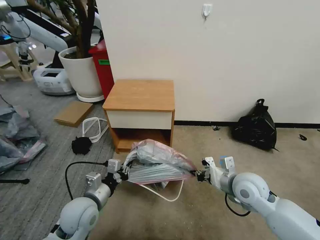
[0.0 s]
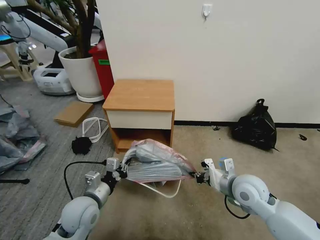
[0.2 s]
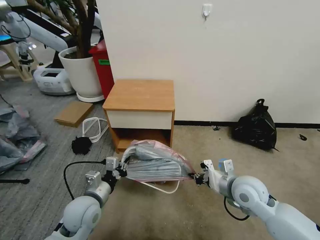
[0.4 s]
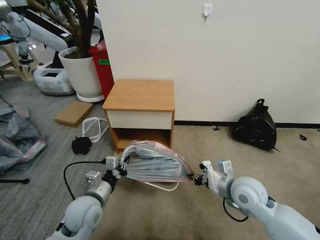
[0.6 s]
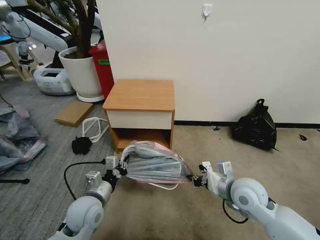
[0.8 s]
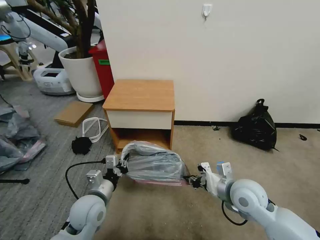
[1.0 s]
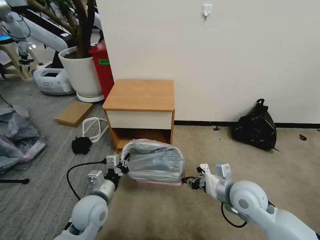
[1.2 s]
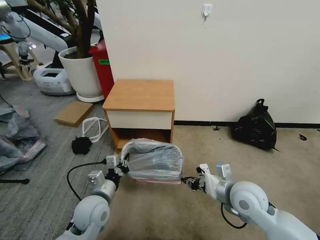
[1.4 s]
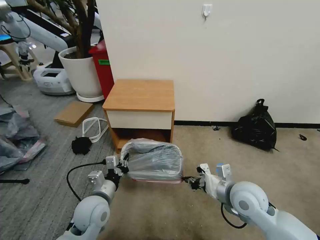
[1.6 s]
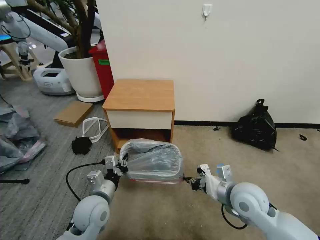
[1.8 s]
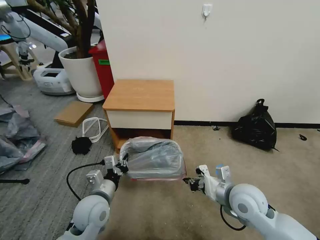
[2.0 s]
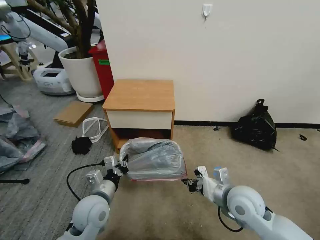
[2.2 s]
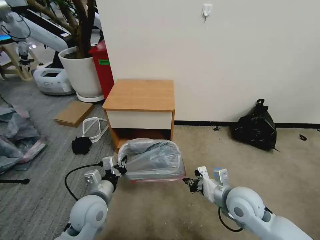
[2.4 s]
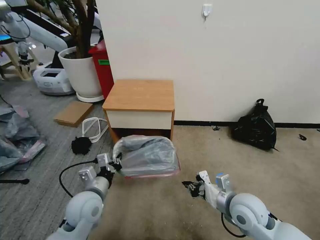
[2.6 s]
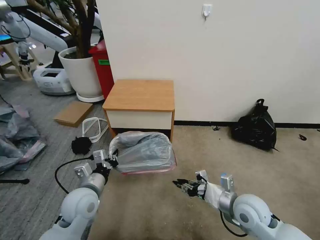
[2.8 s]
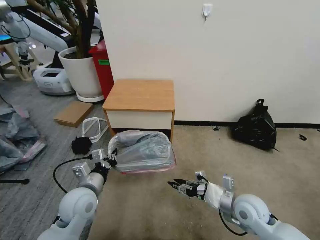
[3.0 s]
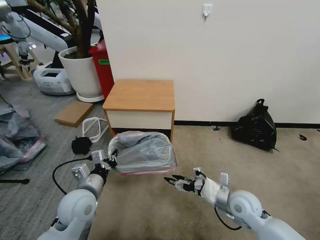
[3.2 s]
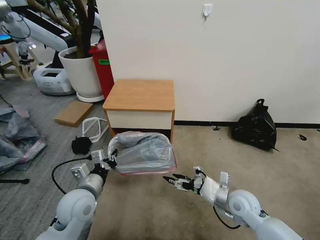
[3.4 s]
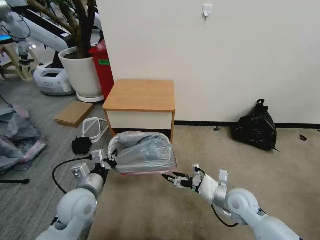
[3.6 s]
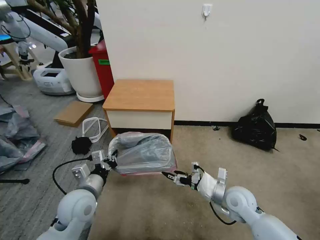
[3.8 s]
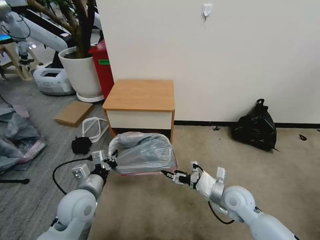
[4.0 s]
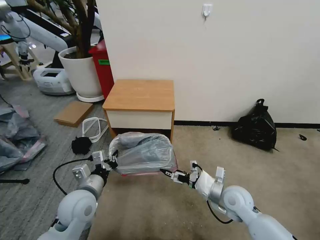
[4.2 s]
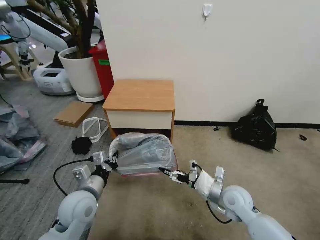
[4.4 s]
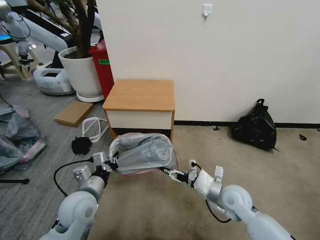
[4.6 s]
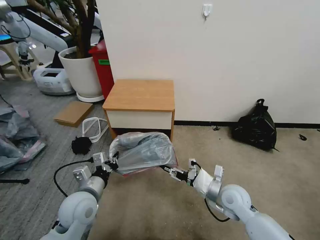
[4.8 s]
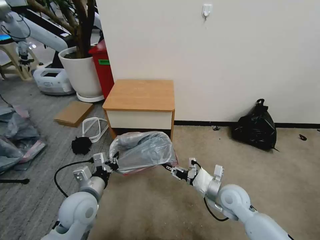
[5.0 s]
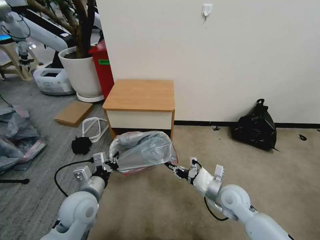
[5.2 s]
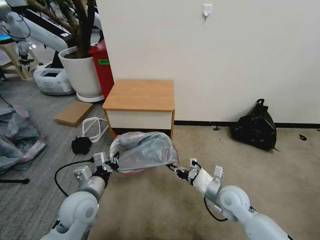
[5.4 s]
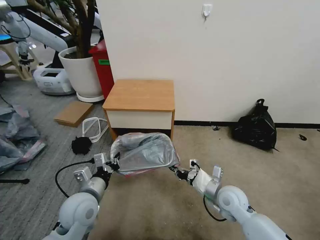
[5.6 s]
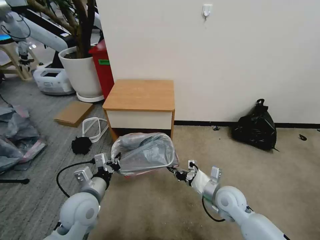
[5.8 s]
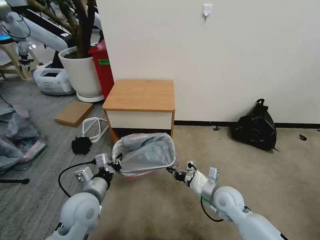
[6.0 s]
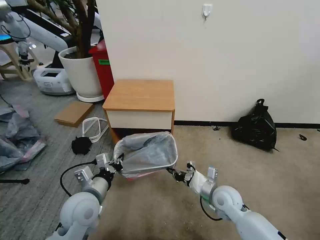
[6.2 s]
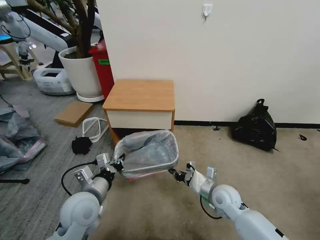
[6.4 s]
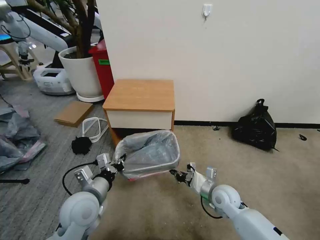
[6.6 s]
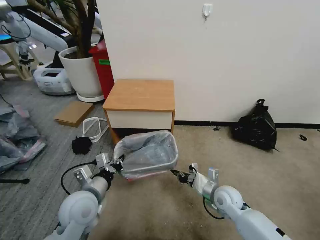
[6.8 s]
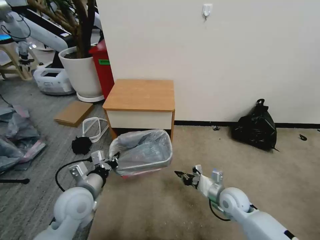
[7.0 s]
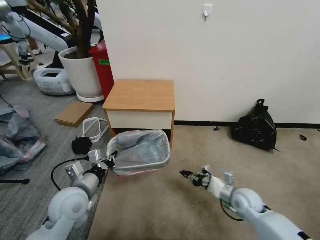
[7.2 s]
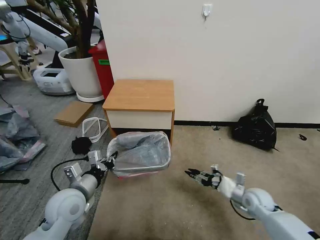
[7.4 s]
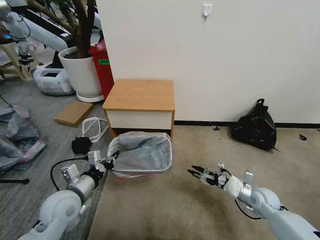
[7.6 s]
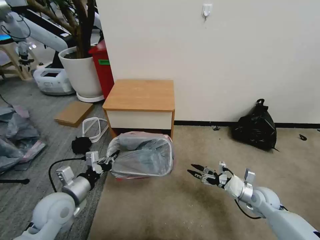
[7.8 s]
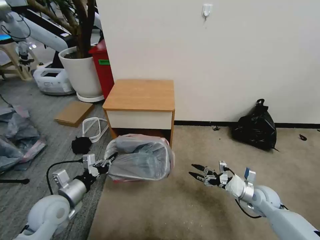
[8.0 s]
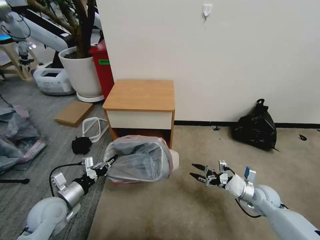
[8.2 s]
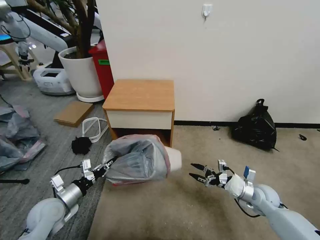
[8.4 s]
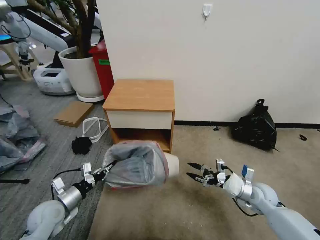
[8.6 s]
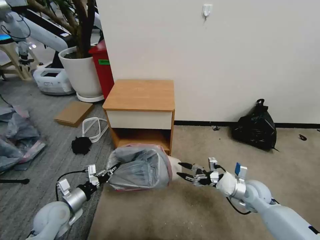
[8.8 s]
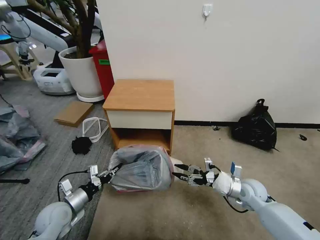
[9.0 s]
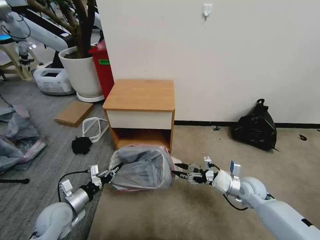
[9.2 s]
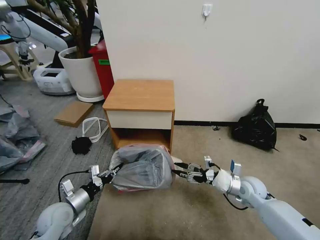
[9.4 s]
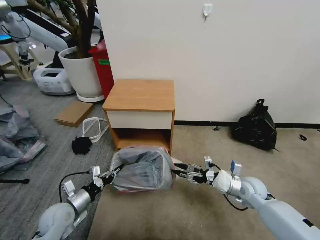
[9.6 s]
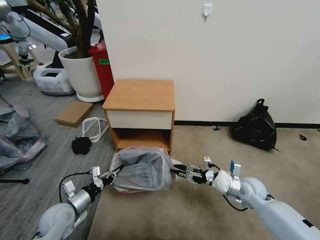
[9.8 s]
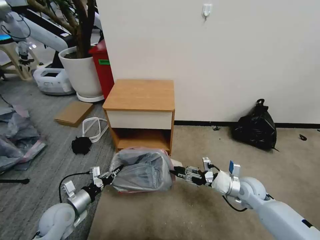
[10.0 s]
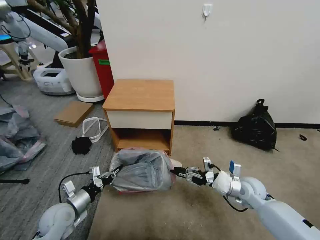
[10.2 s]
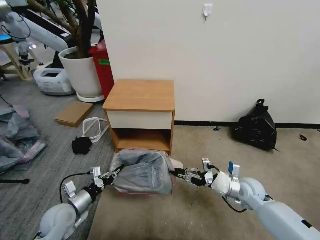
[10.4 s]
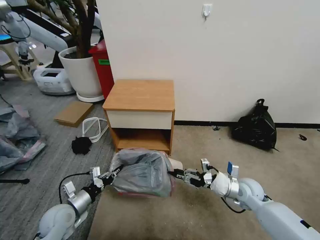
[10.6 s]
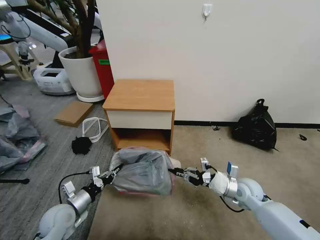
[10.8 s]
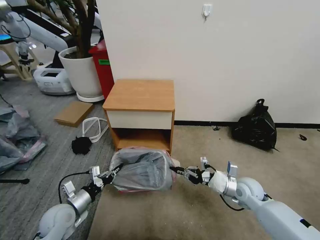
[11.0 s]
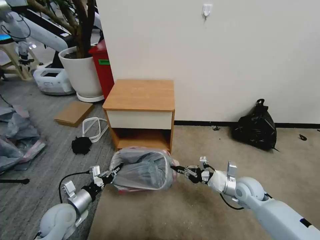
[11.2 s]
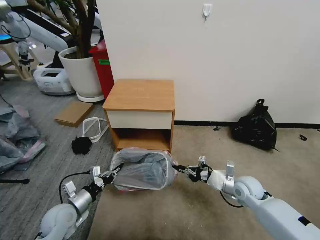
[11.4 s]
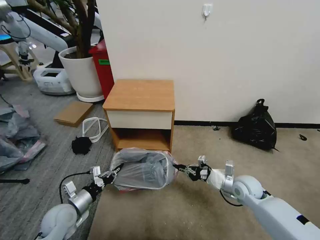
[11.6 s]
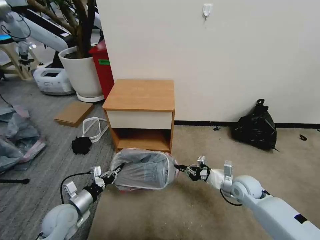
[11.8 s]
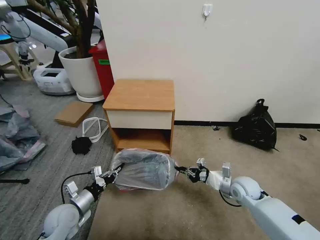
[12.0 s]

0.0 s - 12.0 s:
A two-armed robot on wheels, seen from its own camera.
Task of the whole recording: Pick up the garbage bag from the table and place it over the trash can.
0.0 s - 1.6 s: The grippers move only a little.
1.6 s - 3.0 s: The right gripper travels downward by about 5 cm, and opens its fingers.
3.0 s - 4.4 s: The right gripper opens.
4.4 s - 6.0 s: The right gripper closes.
6.0 s - 7.6 s: The right gripper travels to the right by about 15 cm, and opens its fingers, while the left gripper is displaced to the left by some 5 cm.
7.6 s - 9.0 s: The left gripper goes some 10 cm downward and to the left; the right gripper moves to the left, some 5 cm.
9.0 s - 10.4 s: The right gripper closes.

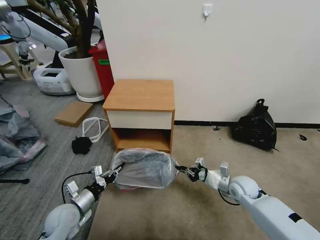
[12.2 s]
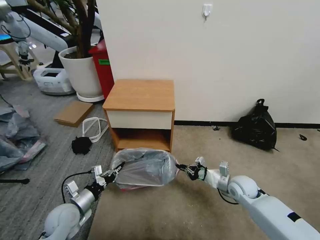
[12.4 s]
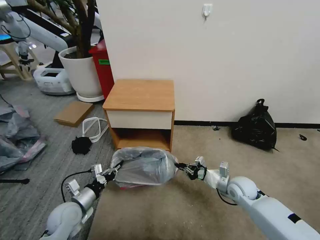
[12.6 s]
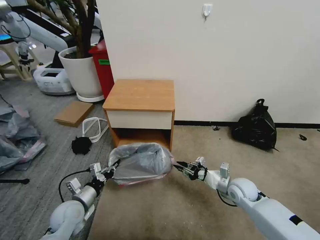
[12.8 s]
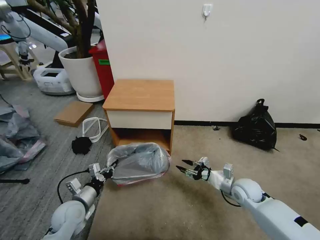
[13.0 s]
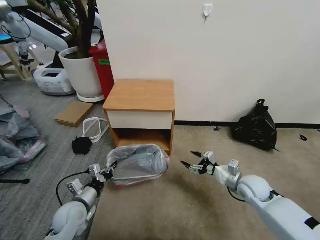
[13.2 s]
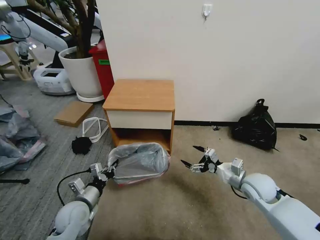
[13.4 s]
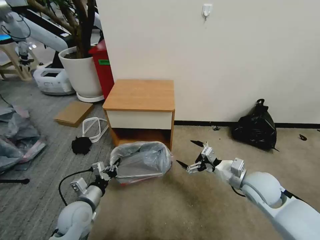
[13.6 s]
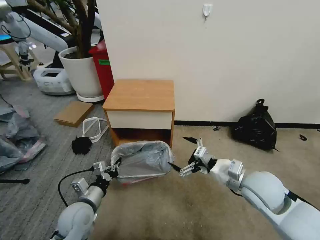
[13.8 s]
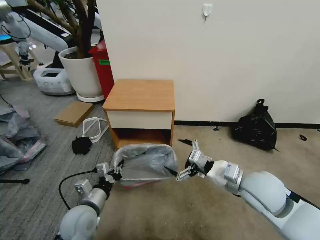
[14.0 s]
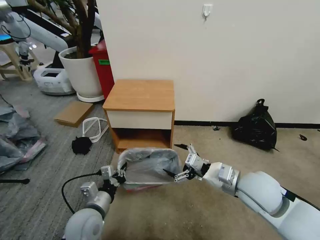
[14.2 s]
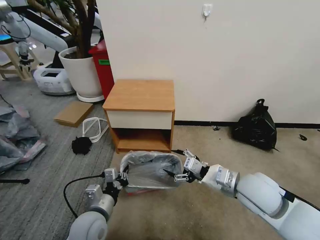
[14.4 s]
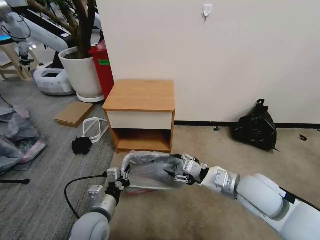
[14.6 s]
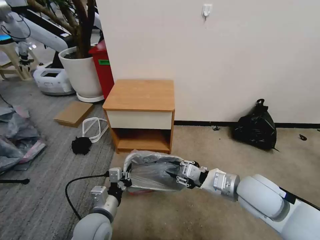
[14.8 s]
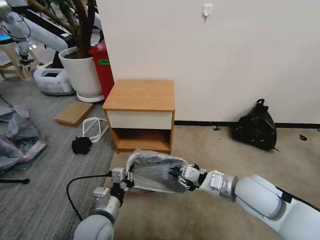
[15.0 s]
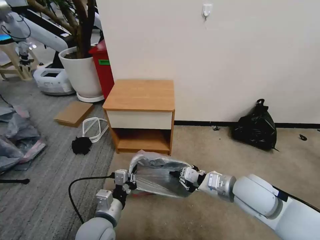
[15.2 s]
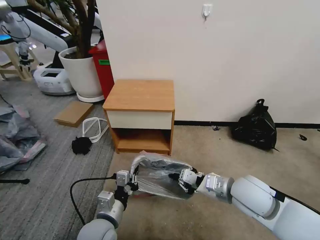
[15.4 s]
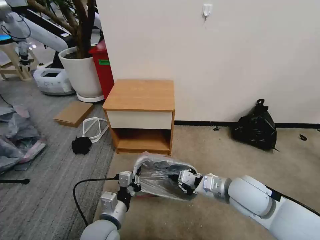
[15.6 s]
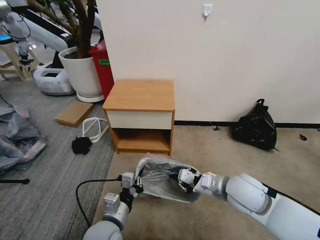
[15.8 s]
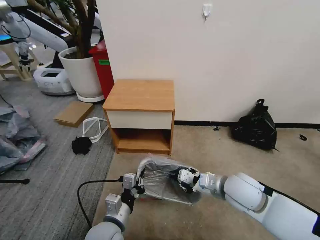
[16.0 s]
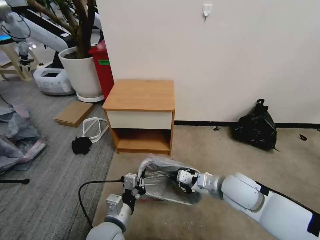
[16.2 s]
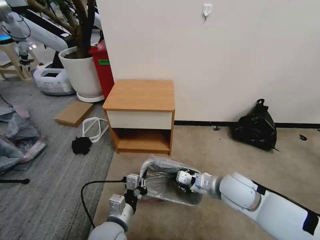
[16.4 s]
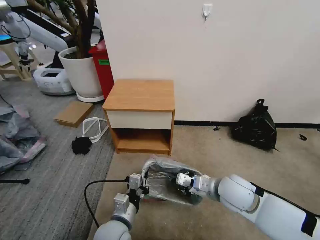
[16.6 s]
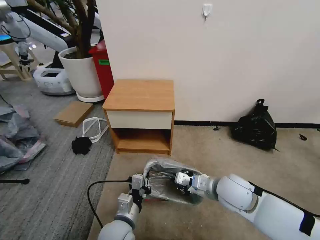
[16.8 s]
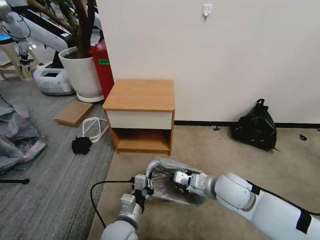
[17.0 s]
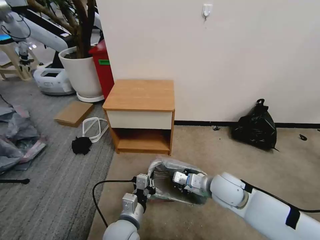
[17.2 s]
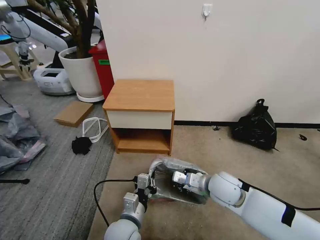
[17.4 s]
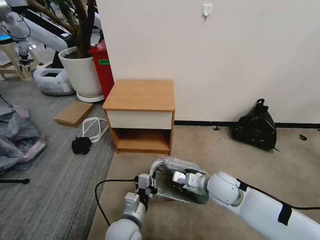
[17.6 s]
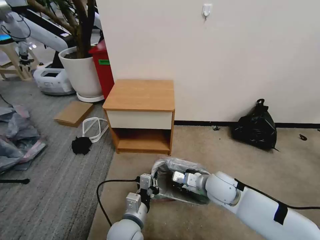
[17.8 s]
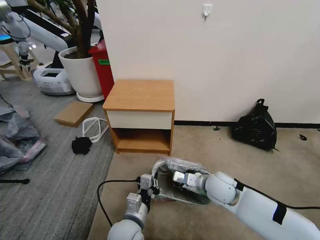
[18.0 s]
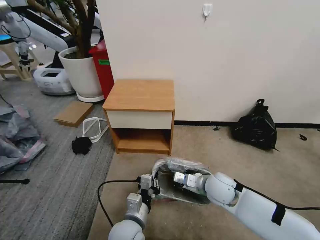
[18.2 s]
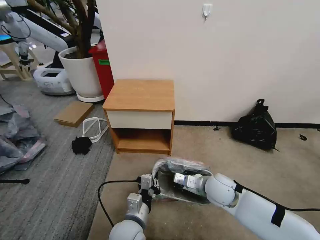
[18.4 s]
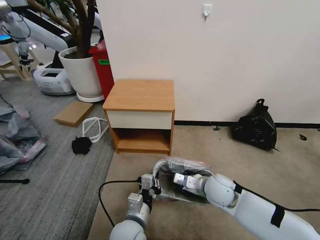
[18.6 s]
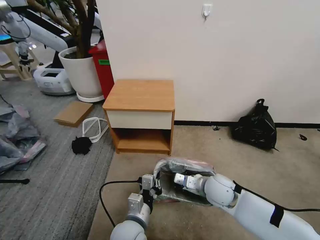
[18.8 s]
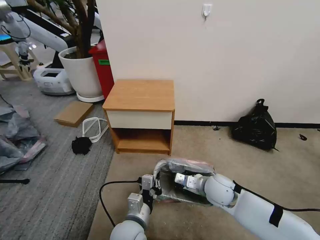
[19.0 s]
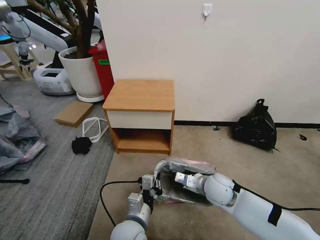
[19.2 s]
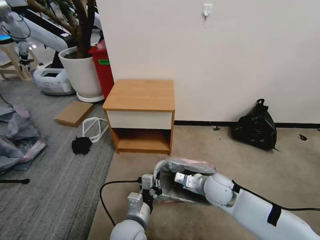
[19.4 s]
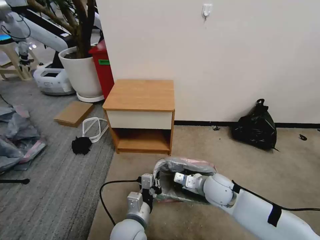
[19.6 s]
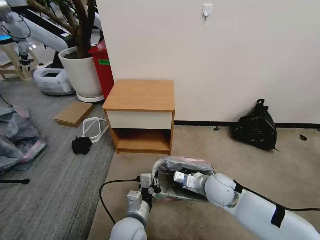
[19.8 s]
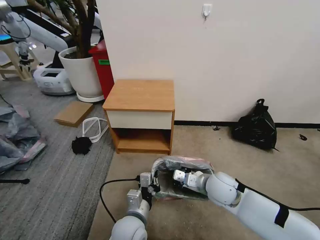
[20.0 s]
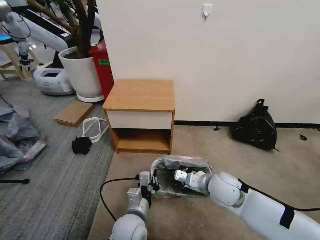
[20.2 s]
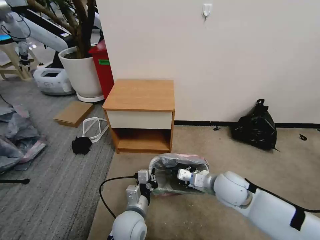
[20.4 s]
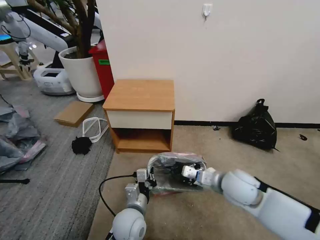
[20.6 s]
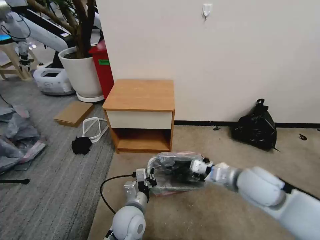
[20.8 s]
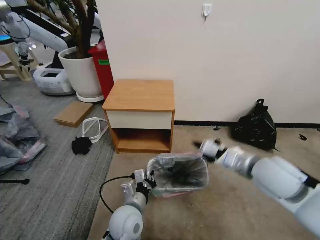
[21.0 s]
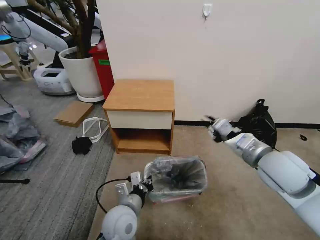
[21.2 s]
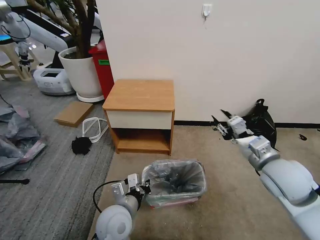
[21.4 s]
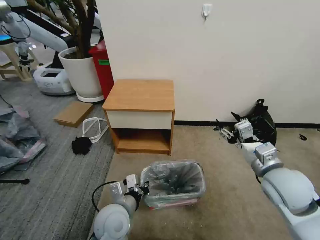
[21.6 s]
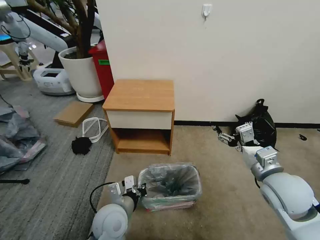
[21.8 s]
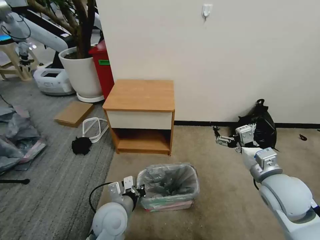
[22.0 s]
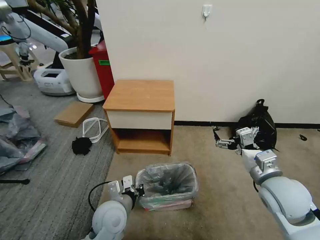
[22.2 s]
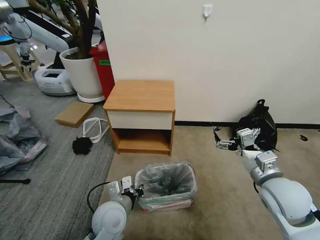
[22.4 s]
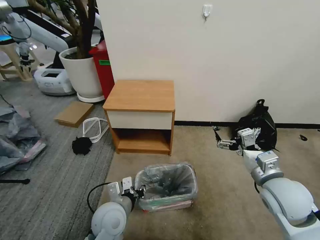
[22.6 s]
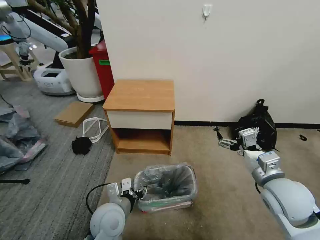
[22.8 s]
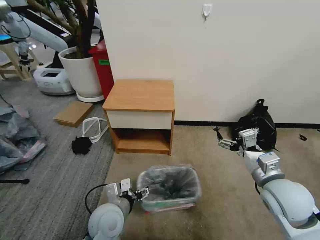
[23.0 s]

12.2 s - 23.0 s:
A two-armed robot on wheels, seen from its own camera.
Task of the whole recording: Pick up the garbage bag from the table and place it over the trash can.
12.2 s - 13.8 s: The right gripper is displaced upward by about 15 cm, and opens its fingers. The left gripper heads to the right, covering about 5 cm.
13.8 s - 15.2 s: The left gripper shifts about 10 cm to the right. Meanwhile the right gripper closes.
15.2 s - 16.8 s: The left gripper travels to the right by about 5 cm. Meanwhile the right gripper moves some 5 cm.
16.8 s - 18.4 s: The right gripper shifts roughly 5 cm downward.
18.4 s - 20.0 s: There are only small adjustments of the grippers.
20.0 s - 21.4 s: The left gripper changes place by some 5 cm. The right gripper goes roughly 20 cm upward and to the right, and opens up.
21.4 s - 23.0 s: The right gripper changes place by approximately 5 cm, and opens its fingers. The left gripper opens its fingers.
